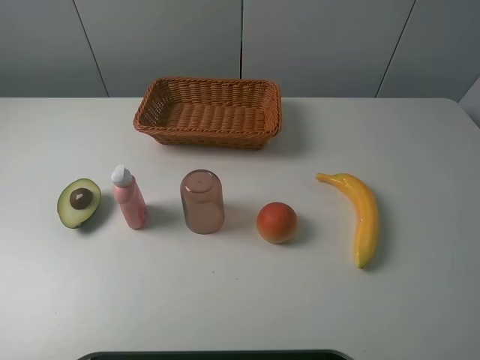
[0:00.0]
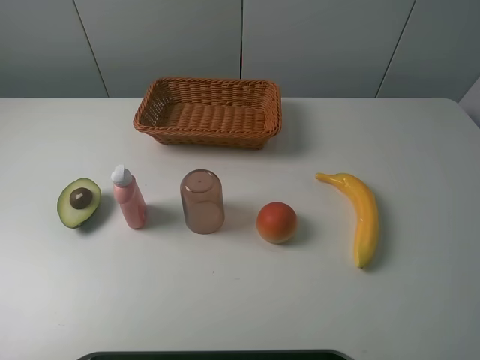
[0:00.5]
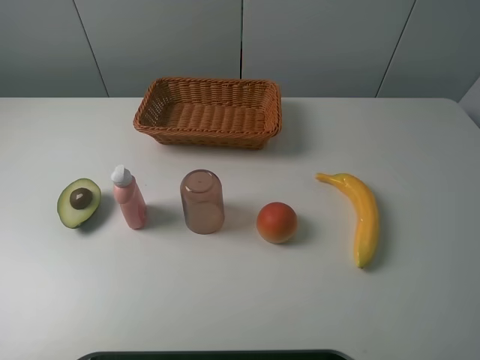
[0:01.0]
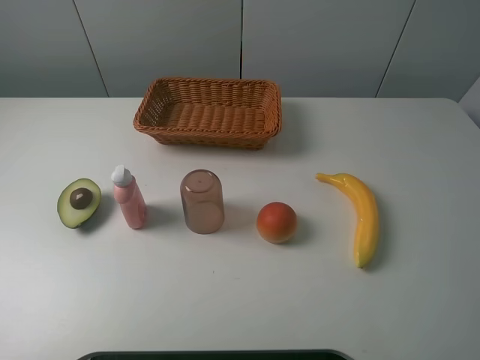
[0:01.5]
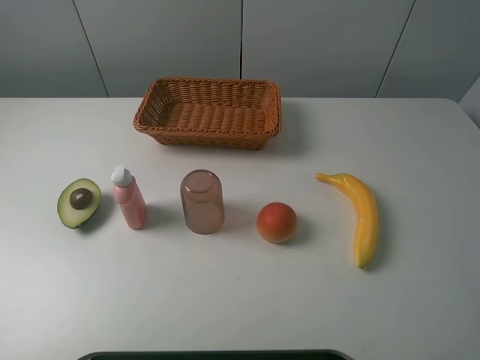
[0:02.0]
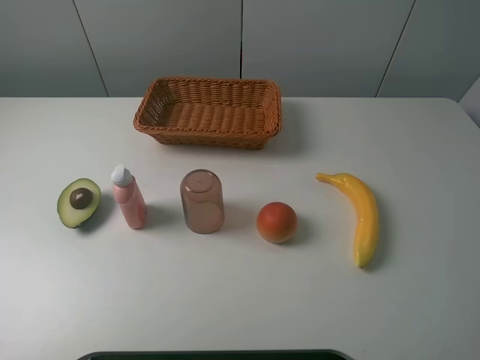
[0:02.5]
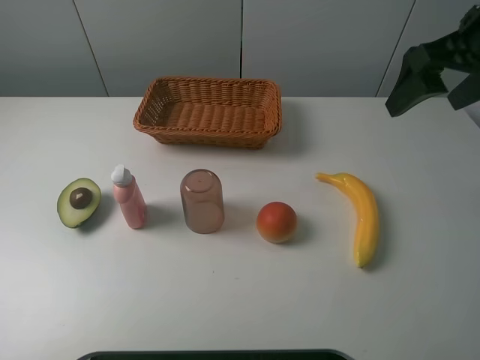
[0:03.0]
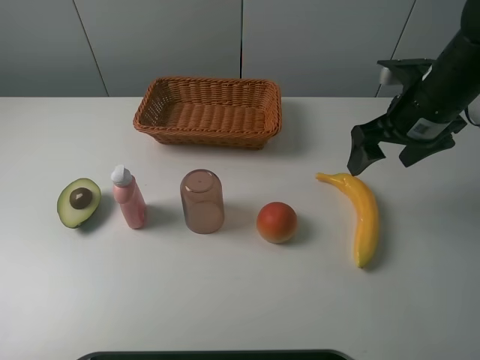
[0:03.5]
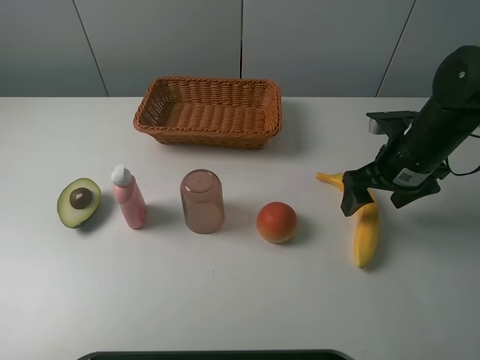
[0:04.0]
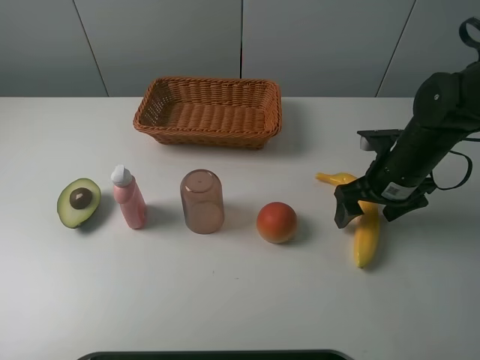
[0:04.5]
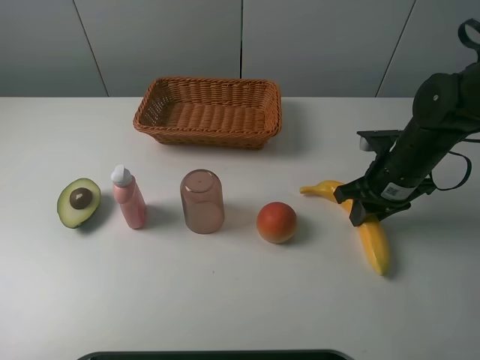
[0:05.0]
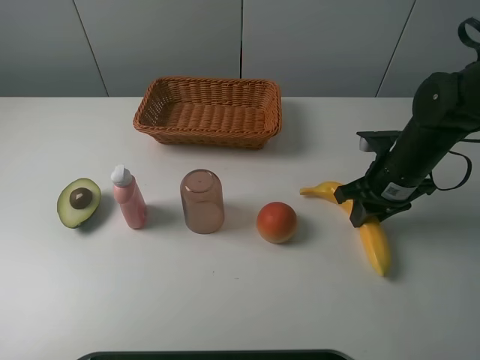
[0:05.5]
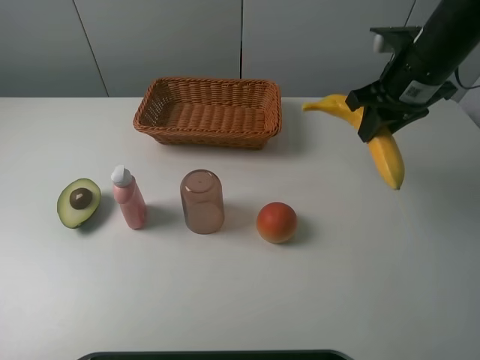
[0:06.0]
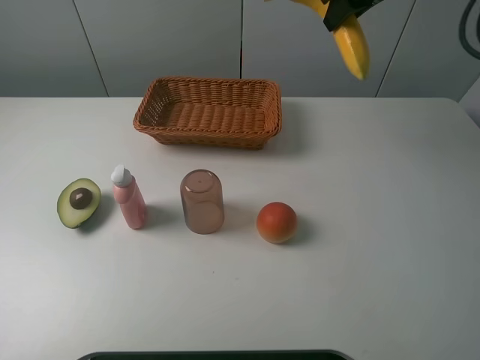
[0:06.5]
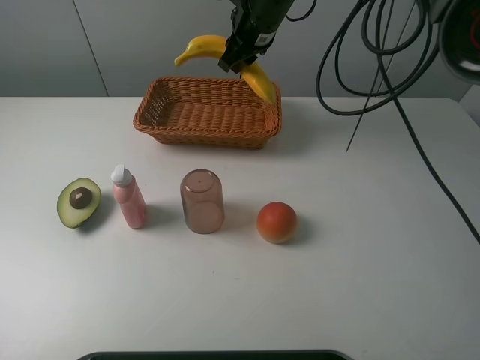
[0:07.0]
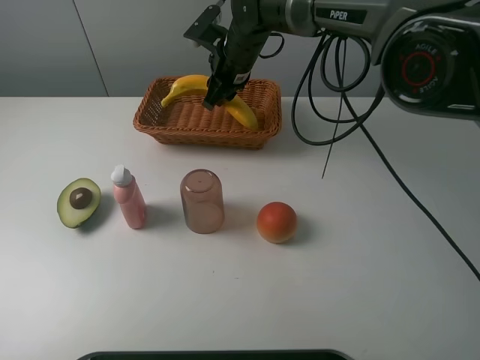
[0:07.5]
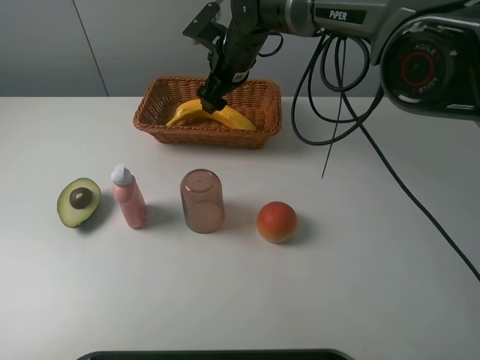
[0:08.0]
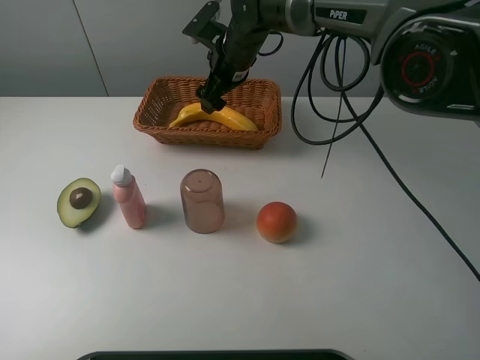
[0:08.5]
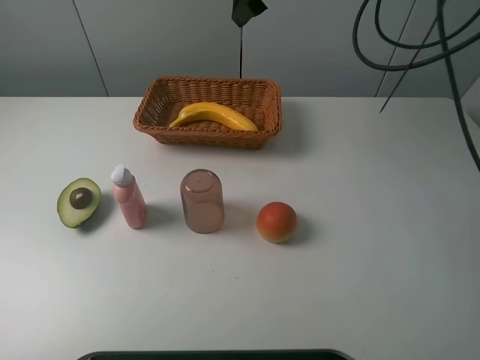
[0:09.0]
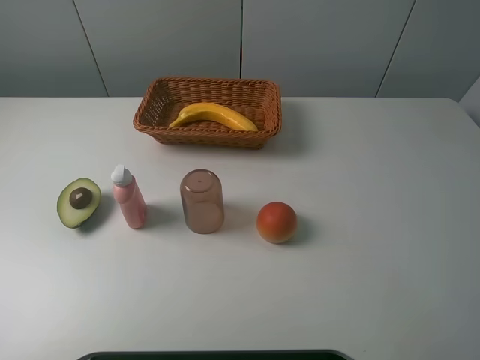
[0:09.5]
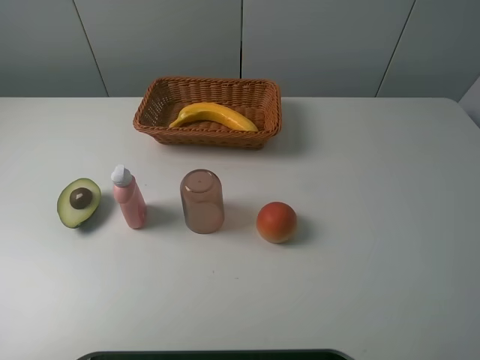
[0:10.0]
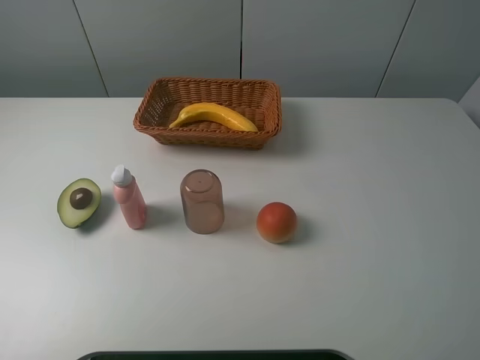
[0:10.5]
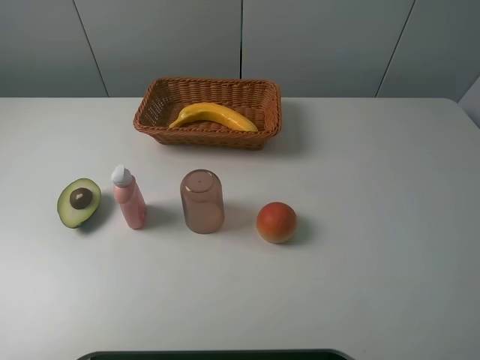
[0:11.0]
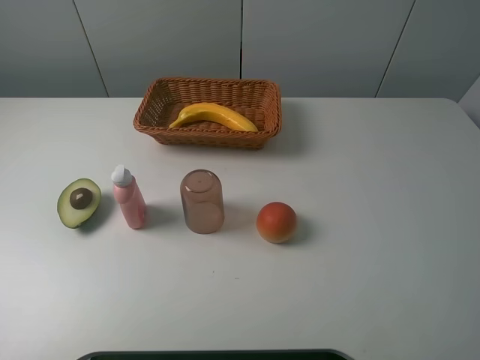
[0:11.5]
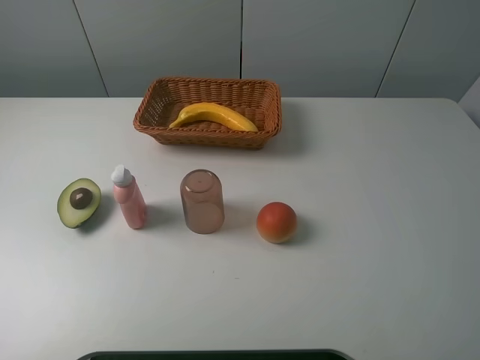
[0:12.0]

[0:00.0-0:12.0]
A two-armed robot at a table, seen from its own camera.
Task of the whole recording: randomly pick up an item from the table and put it in the basket.
Step, 0:00.0 to 0:04.5: Grasp the banana with the right gripper.
Step, 0:05.0 to 0:08.5: Place the banana into the basket with the right gripper.
0:02.0 to 0:04.0: The right gripper is displaced forward and downward by roughly 30 cm.
0:04.0 to 0:06.0: The right gripper goes roughly 10 cm upward and forward, and closes.
0:06.0 to 0:08.0: The right gripper shifts some 25 cm to the left and forward, and opens its fingers.
0:08.0 to 0:10.0: The right gripper moves to the right, upward and backward, some 50 cm.

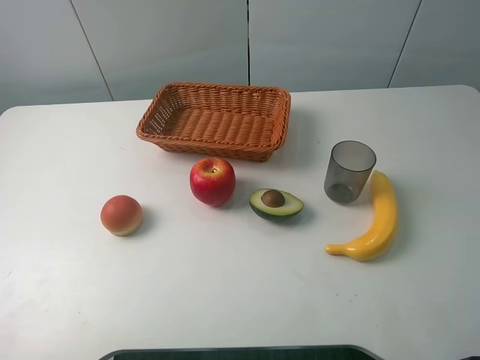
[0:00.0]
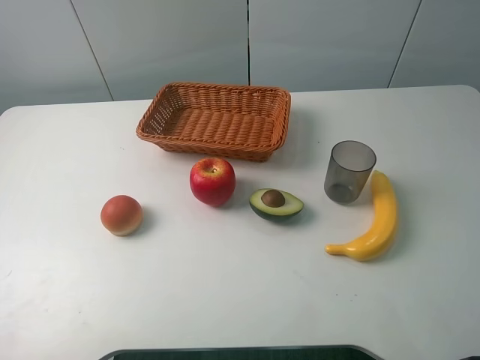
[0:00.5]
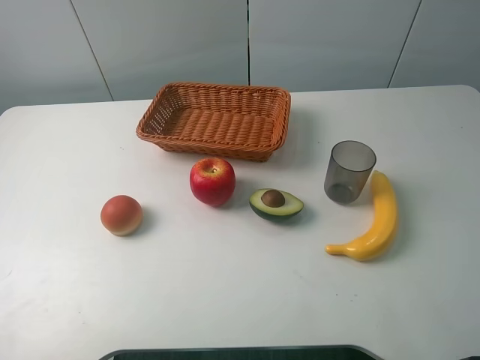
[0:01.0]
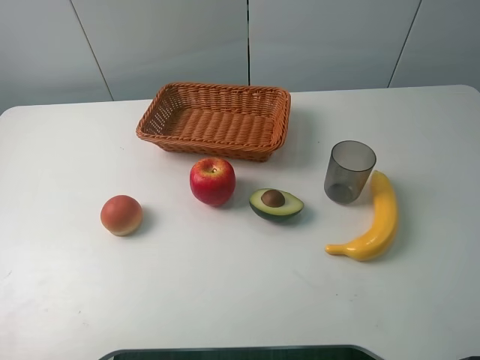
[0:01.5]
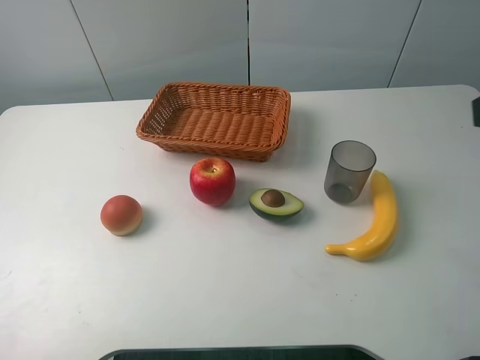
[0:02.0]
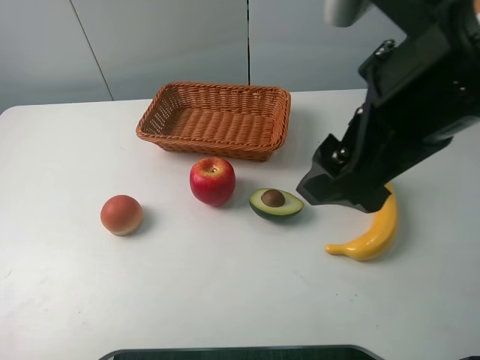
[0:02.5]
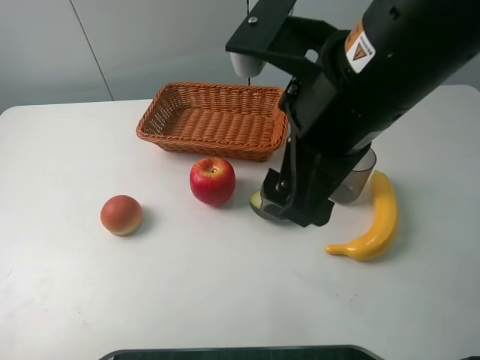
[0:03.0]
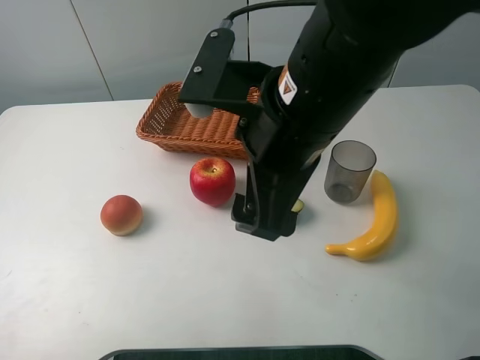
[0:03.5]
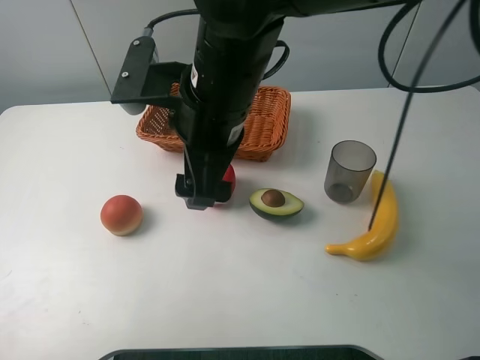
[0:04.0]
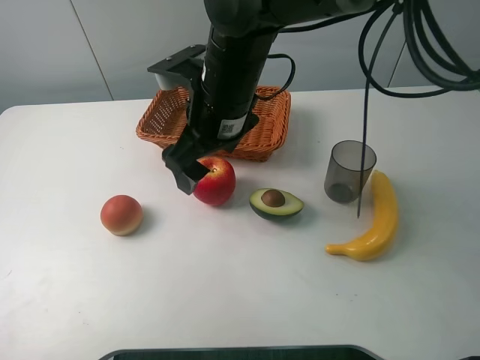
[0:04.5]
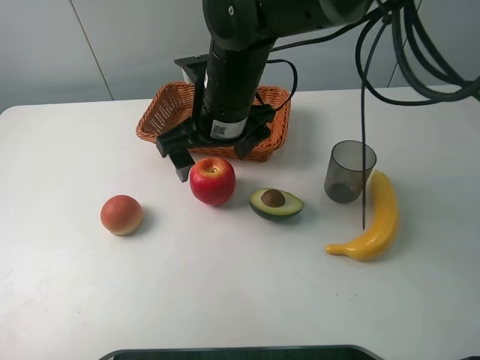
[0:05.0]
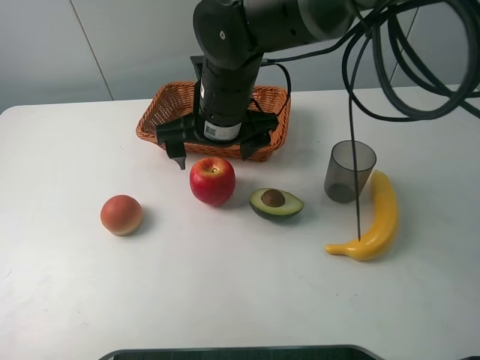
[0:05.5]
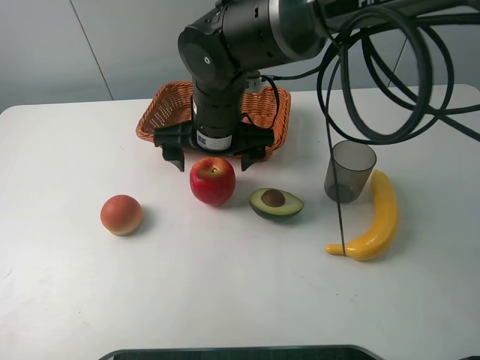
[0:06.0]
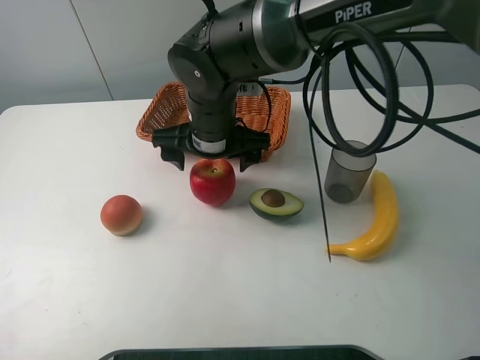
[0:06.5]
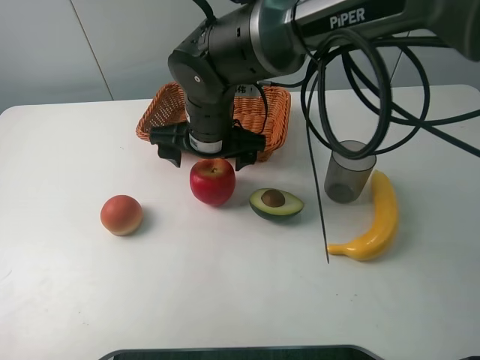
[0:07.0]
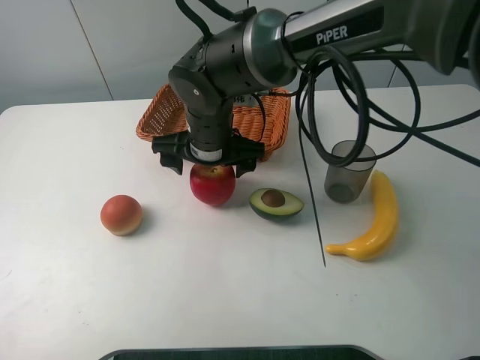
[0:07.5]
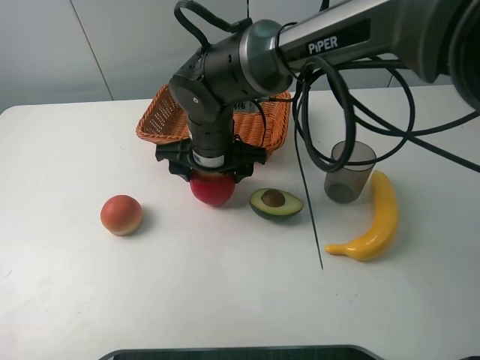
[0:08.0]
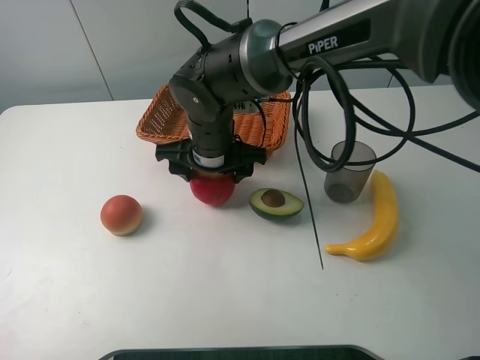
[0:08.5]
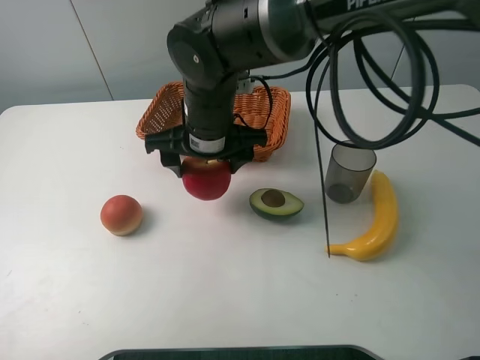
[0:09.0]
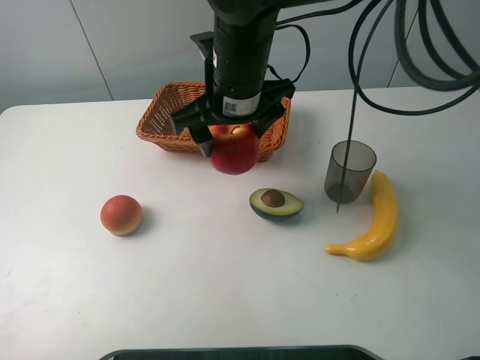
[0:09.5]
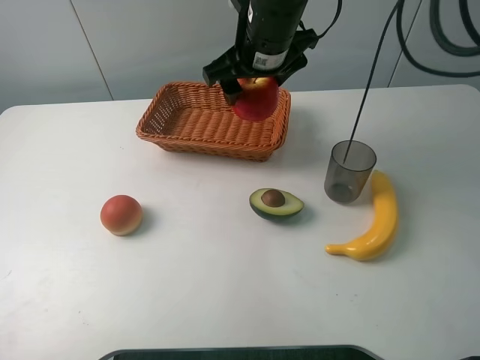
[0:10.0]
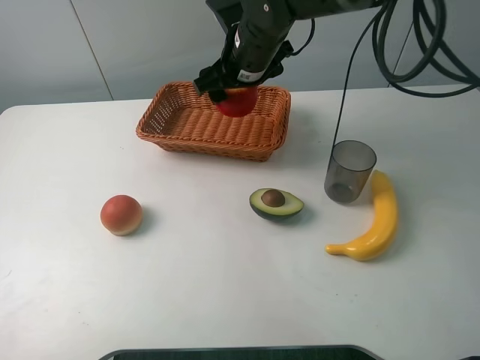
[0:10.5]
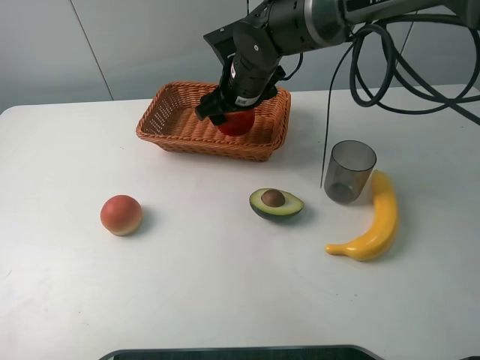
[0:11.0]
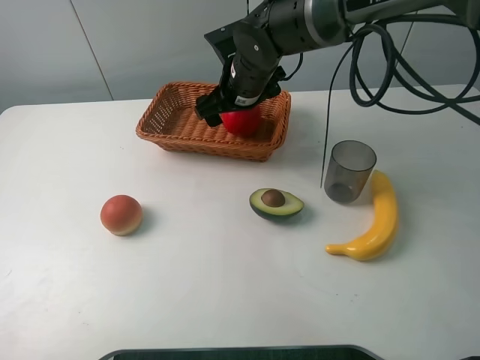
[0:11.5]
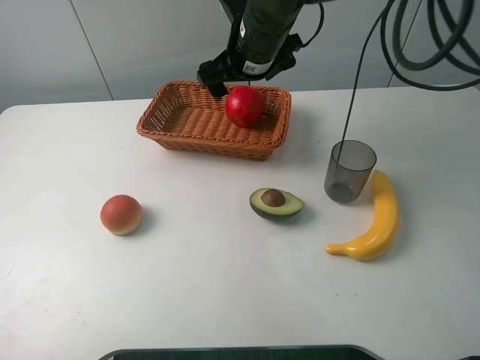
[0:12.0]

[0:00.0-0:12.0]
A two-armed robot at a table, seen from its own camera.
Task of the whole recording: randomly pick up an item from the table and put it in the basket.
Step, 0:00.0 to 0:08.0: Grasp the apple with the right gripper.
0:02.0 to 0:04.0: The right gripper heads to the left and forward, covering some 30 cm.
0:04.0 to 0:06.0: The right gripper travels downward and forward by about 10 cm.
0:06.0 to 0:08.0: The right gripper closes.
0:08.0 to 0:10.0: The right gripper goes roughly 15 cm upward, to the right and forward.
0:10.0 to 0:12.0: The right gripper moves roughly 10 cm downward and comes back, and opens up.

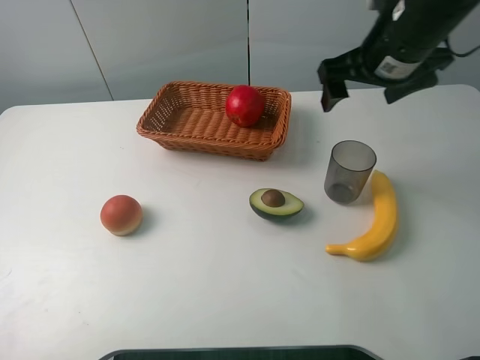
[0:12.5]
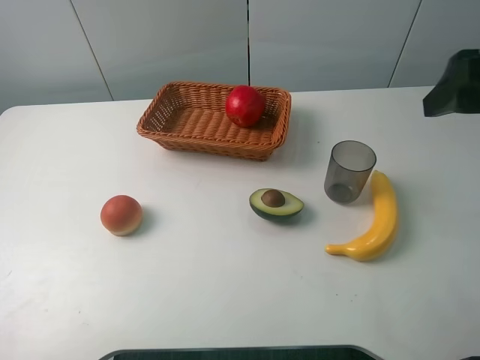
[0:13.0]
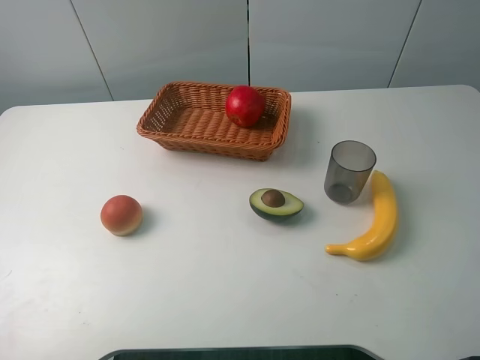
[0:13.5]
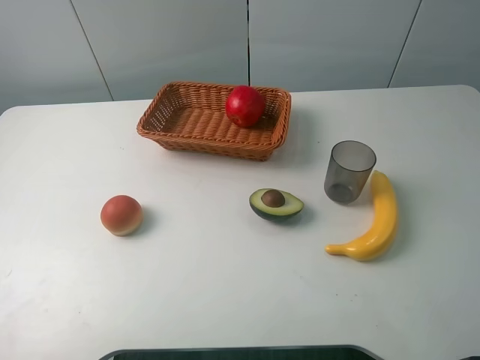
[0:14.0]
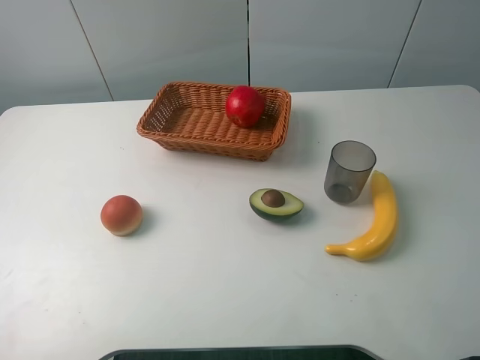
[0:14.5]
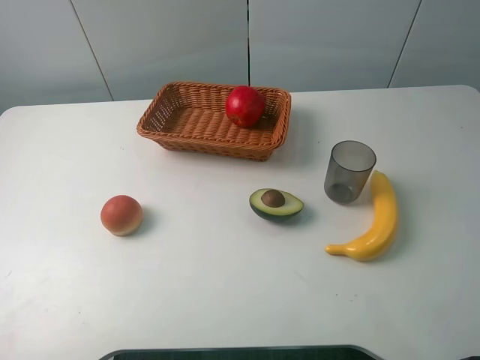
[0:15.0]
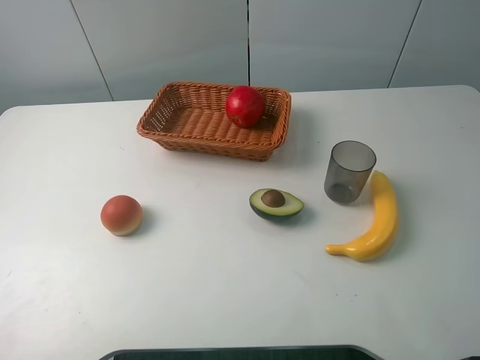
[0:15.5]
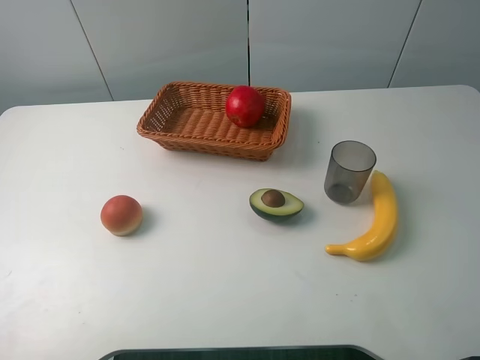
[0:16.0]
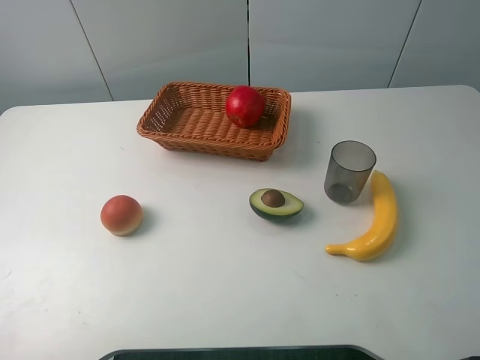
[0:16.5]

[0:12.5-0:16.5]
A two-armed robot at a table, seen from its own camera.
Task of the whole recording: randomly pick up an item from the table and put it in the basket.
0:12.5 to 0:14.5: The right gripper shifts approximately 30 cm backward.
0:14.5 to 0:16.5: Neither gripper changes place.
